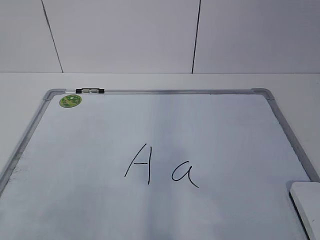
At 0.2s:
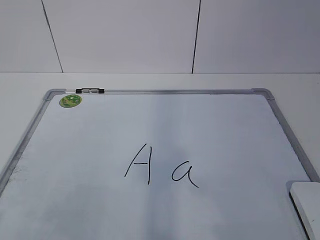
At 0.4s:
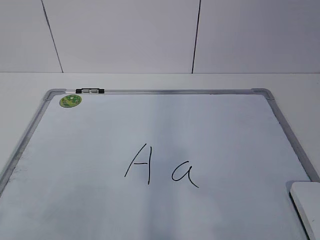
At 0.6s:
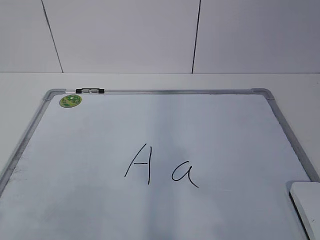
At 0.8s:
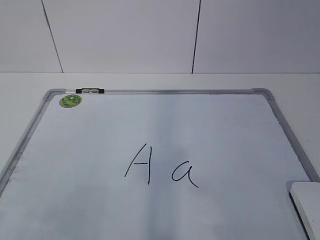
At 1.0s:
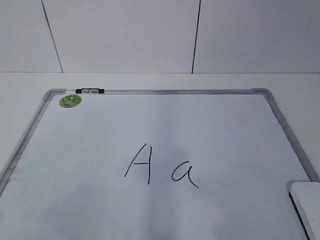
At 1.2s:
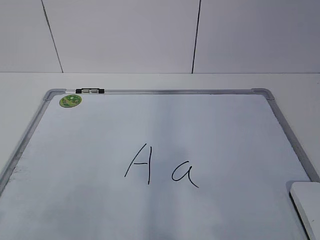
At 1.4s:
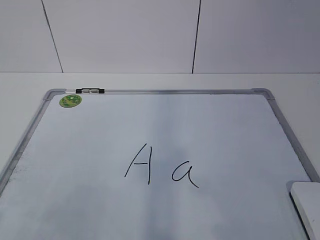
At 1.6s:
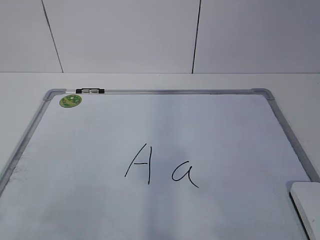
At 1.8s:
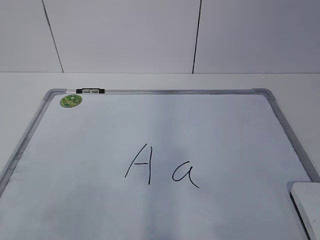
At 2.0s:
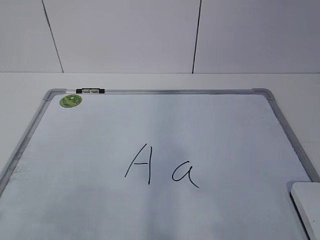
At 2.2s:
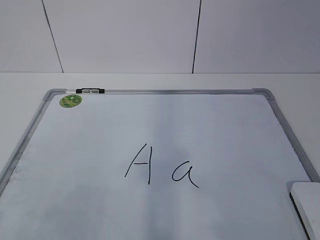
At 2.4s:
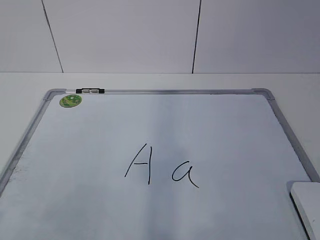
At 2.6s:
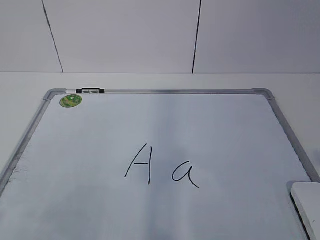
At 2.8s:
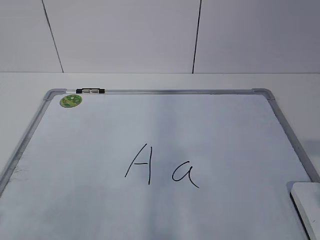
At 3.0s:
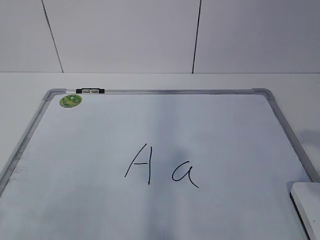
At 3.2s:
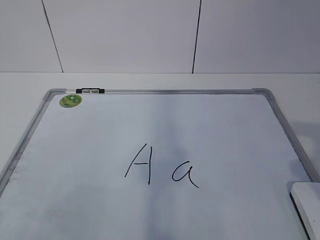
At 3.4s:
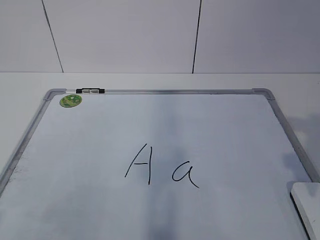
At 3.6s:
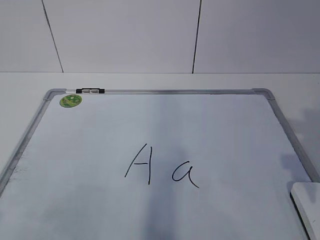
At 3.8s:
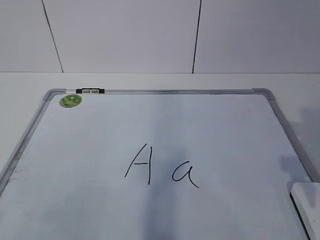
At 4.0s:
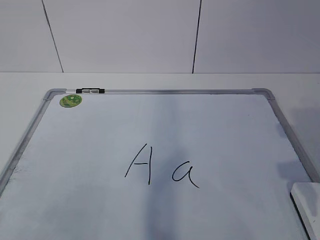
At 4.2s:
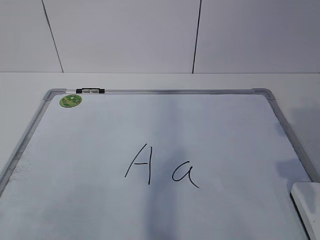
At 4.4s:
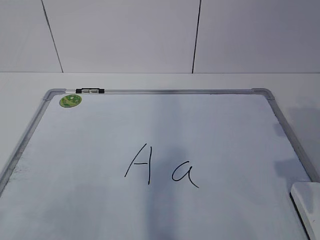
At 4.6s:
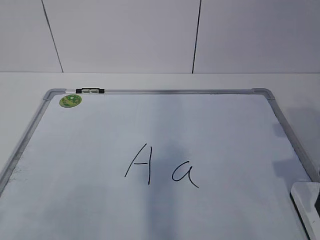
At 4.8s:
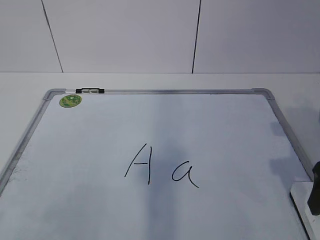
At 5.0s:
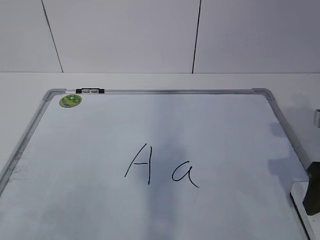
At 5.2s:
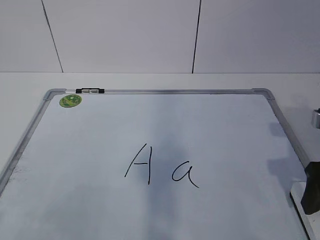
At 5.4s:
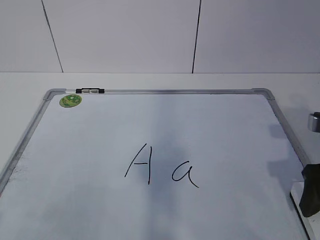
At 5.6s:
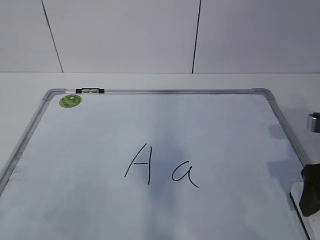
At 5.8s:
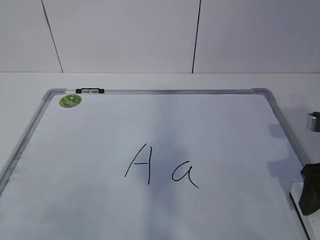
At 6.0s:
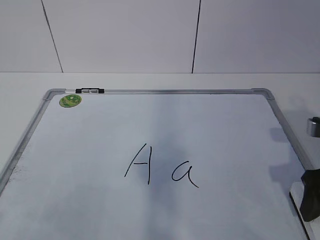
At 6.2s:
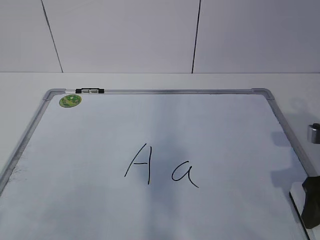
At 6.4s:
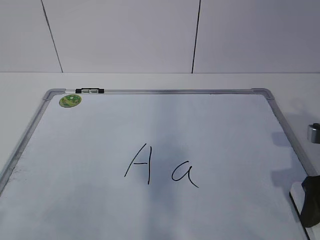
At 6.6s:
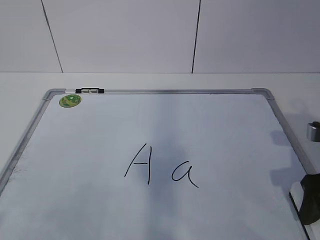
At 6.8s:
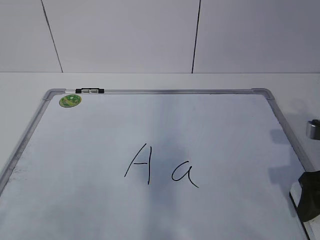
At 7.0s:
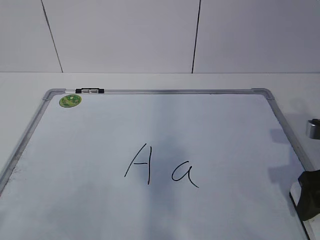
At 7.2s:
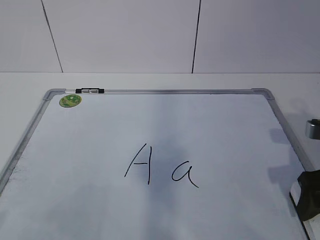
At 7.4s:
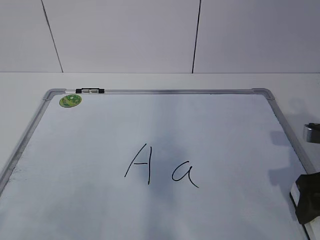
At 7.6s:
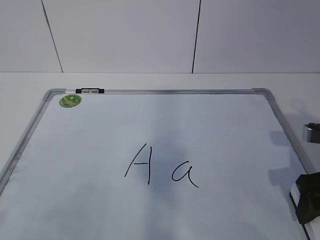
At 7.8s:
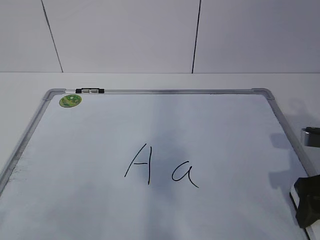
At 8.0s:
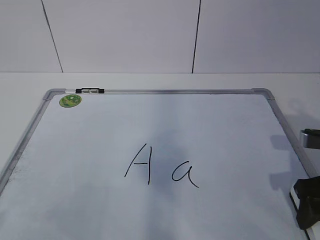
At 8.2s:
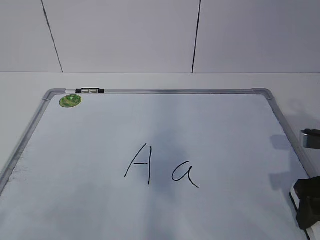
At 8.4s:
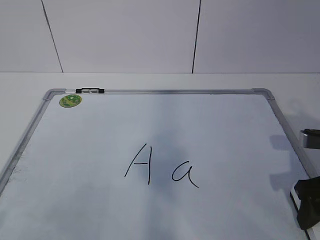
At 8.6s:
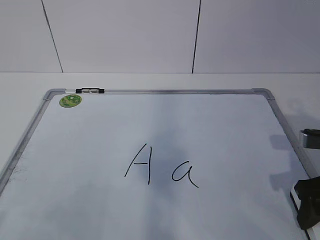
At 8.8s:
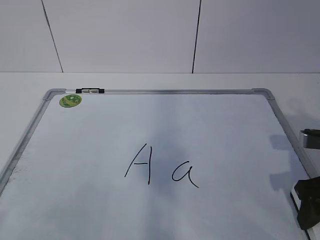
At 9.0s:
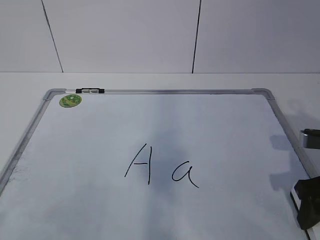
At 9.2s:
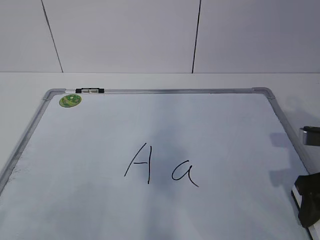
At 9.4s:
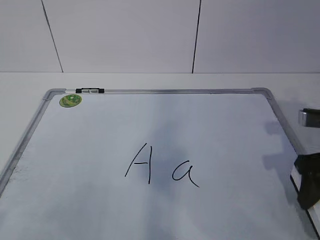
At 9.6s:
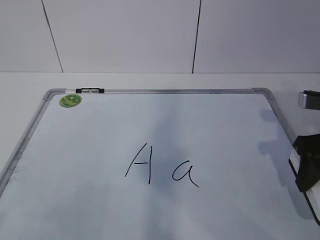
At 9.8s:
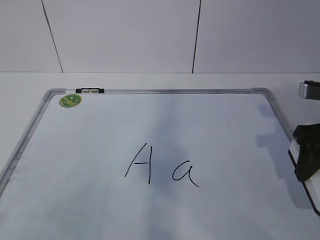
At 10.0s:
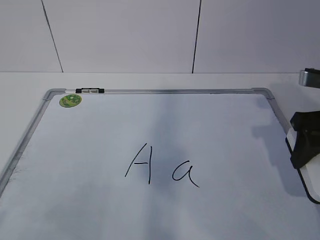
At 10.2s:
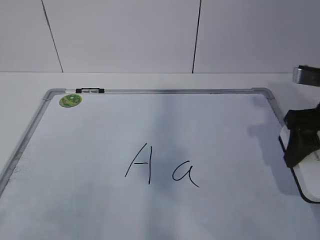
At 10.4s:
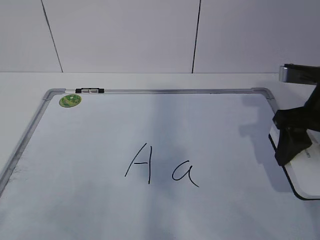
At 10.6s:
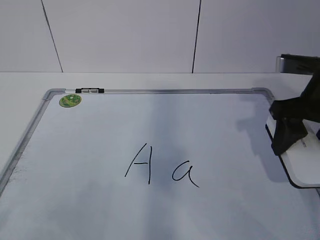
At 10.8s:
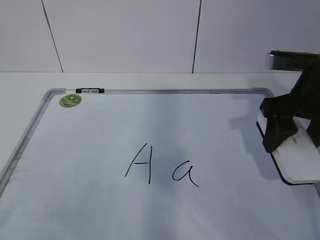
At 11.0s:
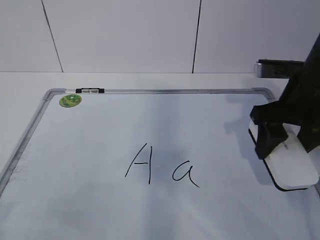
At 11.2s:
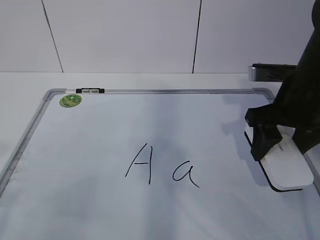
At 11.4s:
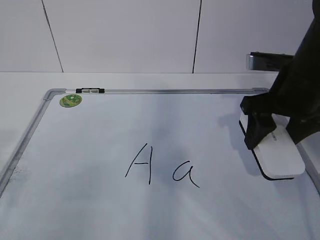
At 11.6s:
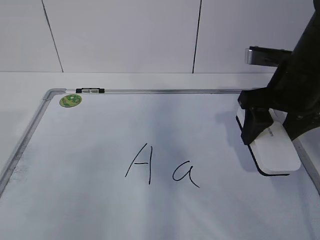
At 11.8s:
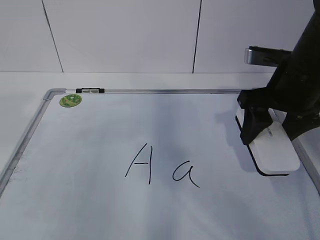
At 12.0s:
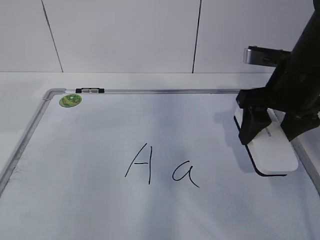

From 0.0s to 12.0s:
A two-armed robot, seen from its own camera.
Task of the whole recording: pick up the eraser on the blackboard and erase the letter "a".
From 3.0s to 4.4s: The right gripper moves forward, about 10 cm.
From 4.4s to 6.0s: The right gripper shifts by some 5 cm.
From 7.6s to 9.0s: The right gripper closes its fingers.
From 9.0s to 10.4s: The right gripper goes approximately 10 cm upward and forward.
From 10.4s to 12.0s: The right gripper shifts by approximately 5 cm.

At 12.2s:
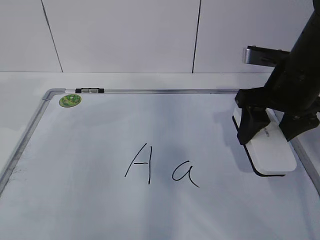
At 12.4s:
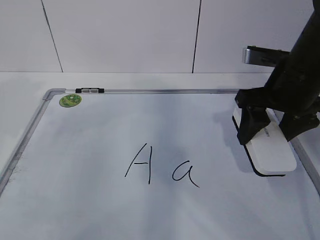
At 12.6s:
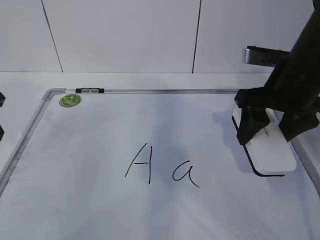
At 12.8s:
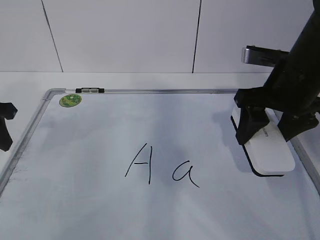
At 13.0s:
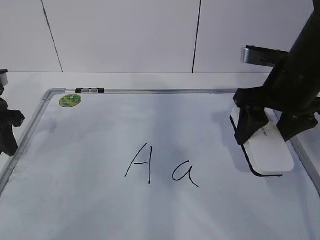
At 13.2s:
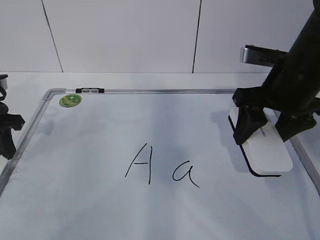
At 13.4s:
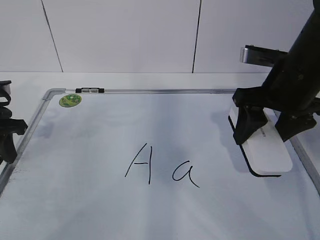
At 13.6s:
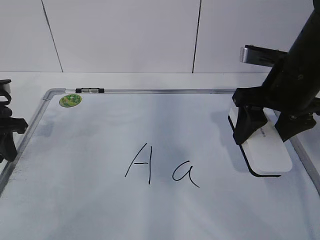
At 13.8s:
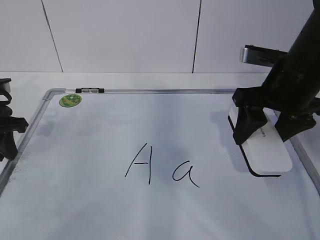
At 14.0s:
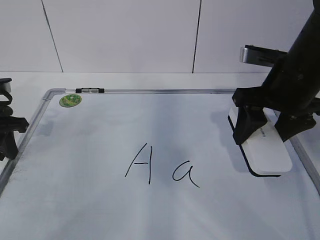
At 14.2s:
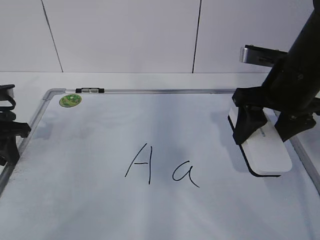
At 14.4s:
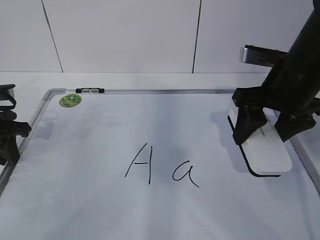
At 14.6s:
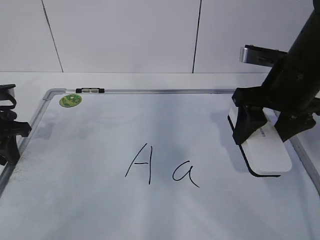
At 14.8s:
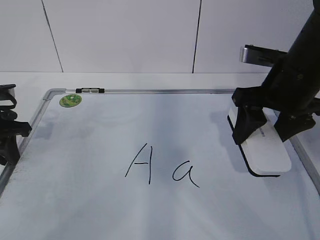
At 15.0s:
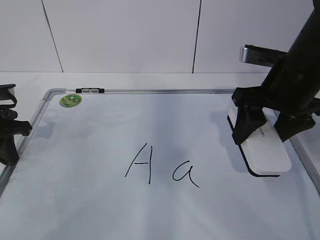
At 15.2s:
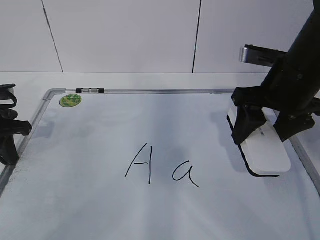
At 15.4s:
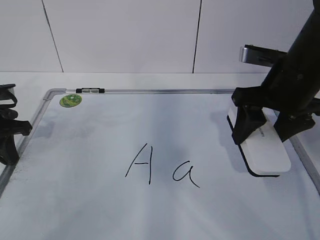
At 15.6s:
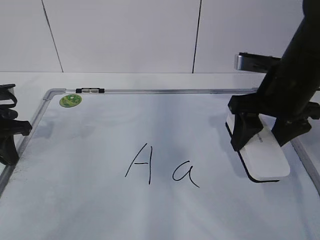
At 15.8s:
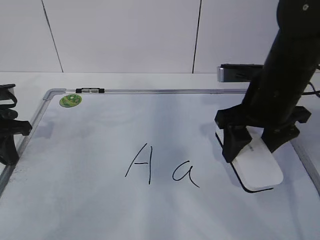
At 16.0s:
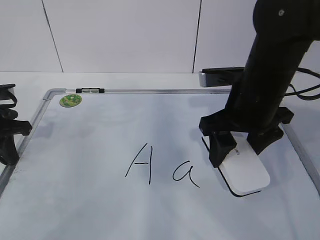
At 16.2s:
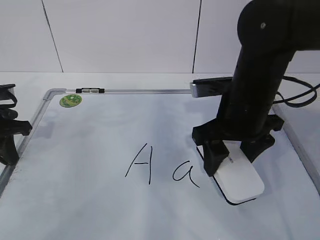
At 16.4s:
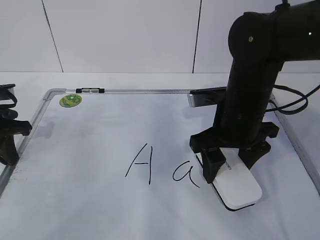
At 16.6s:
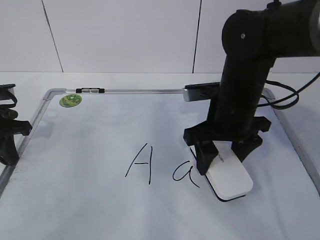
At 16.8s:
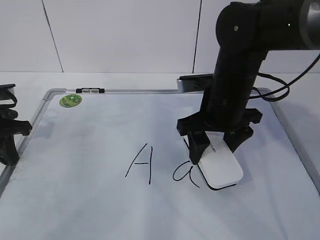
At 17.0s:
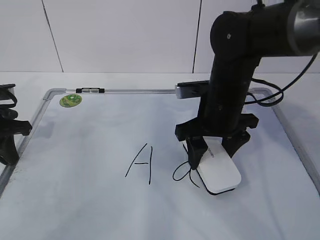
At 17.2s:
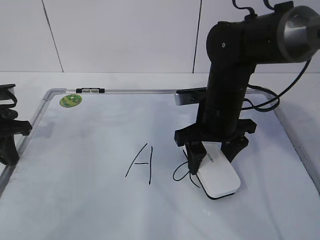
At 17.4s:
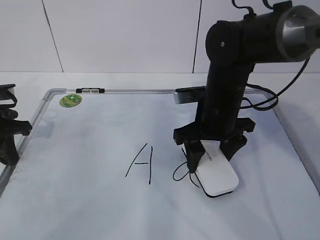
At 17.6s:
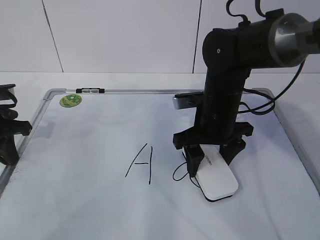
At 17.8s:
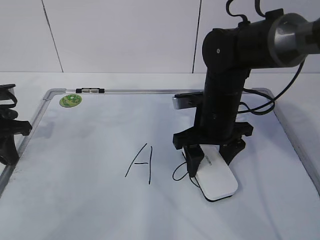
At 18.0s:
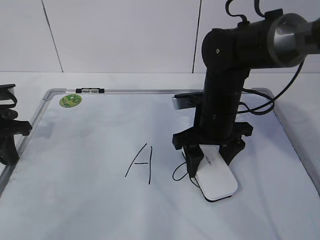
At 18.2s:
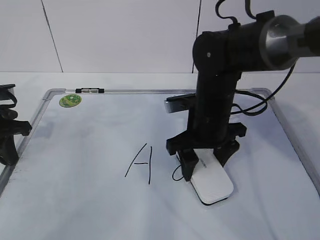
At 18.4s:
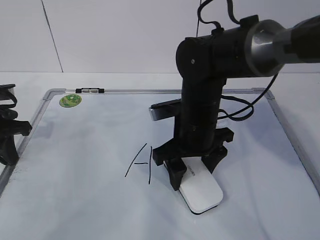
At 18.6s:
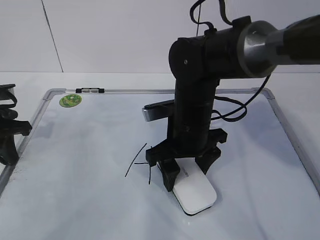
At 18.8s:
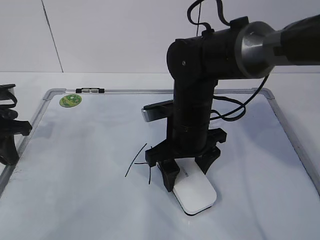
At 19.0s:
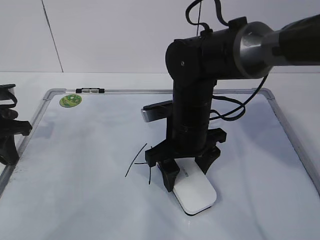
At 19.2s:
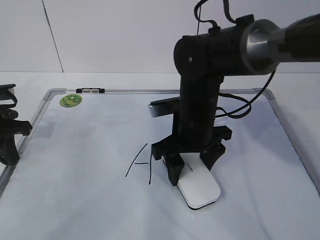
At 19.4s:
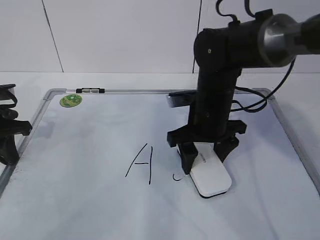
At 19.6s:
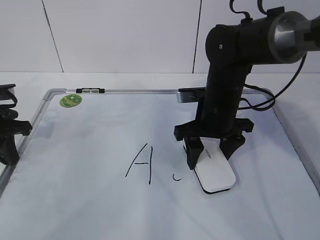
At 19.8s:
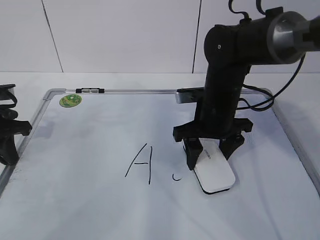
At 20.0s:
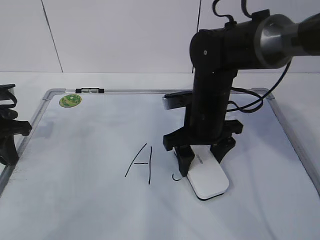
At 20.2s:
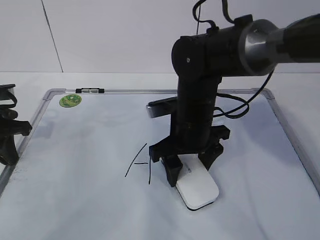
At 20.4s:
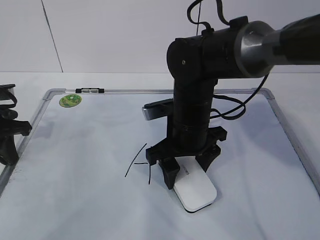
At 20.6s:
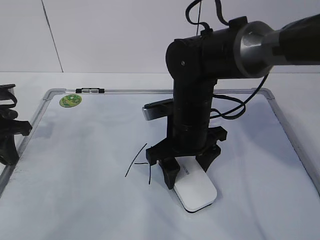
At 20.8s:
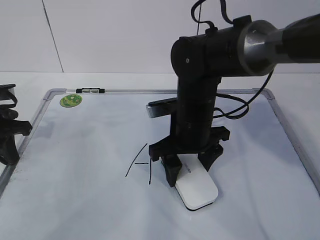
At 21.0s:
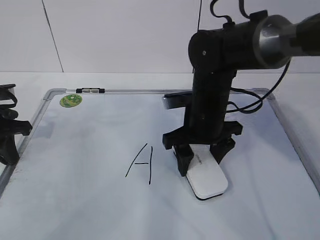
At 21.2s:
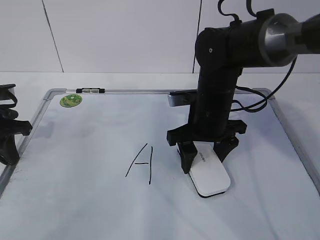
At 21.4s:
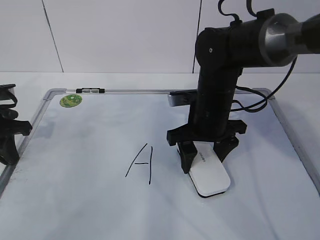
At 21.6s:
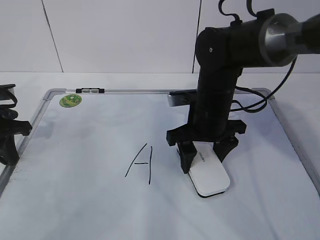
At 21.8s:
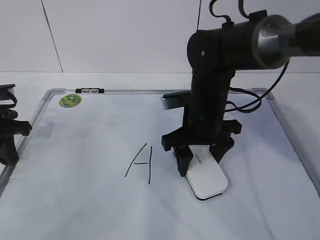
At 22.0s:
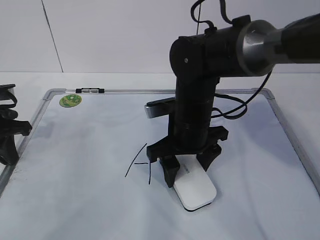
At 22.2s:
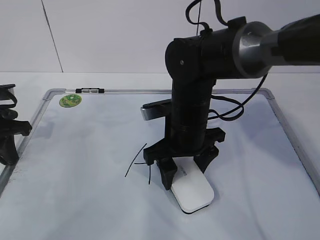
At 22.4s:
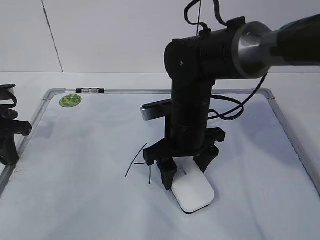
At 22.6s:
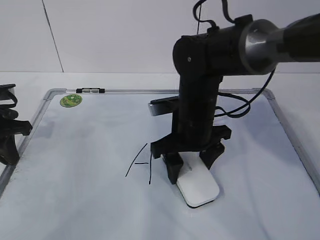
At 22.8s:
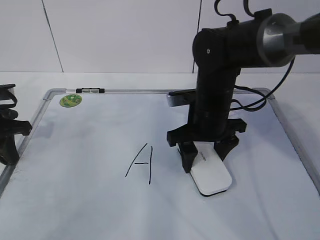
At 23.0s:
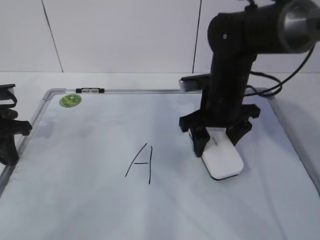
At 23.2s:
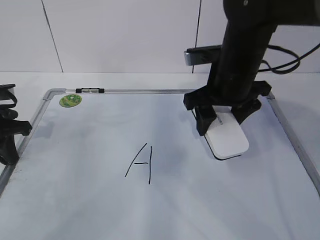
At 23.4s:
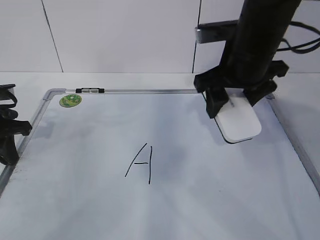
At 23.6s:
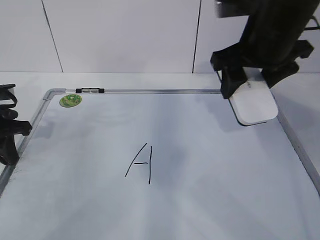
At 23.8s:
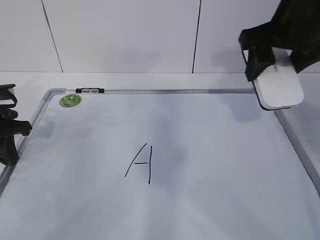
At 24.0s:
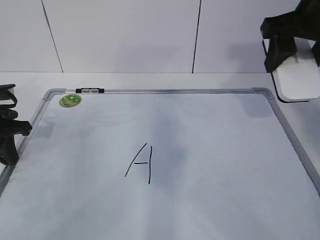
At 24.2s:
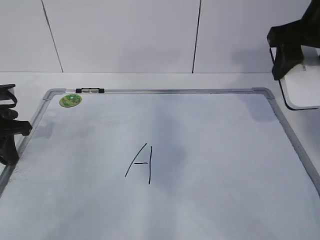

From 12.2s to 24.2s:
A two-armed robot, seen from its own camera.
Task of the whole recording: pick up the eraser on the blackboard and erase the letter "a".
Step, from 12.6s to 18.8s: Erase the letter a with your right hand.
Step, from 19.0s to 22.8s: Put down the eraser with your right hand.
From 12.2s to 13.8s: The left gripper moves downward and forward, roughly 10 cm.
From 13.8s to 15.2s: The left gripper closes.
From 15.2s to 16.6s: The right gripper moves to the left and downward, some 10 cm.
From 16.6s to 18.2s: The grippers stay close to where they were, moving slightly.
From 18.2s to 19.8s: There are only small adjustments of the grippers.
From 21.2s to 22.6s: The grippers make only small movements.
From 22.6s to 24.2s: The right gripper shifts about 25 cm upward and to the right.
